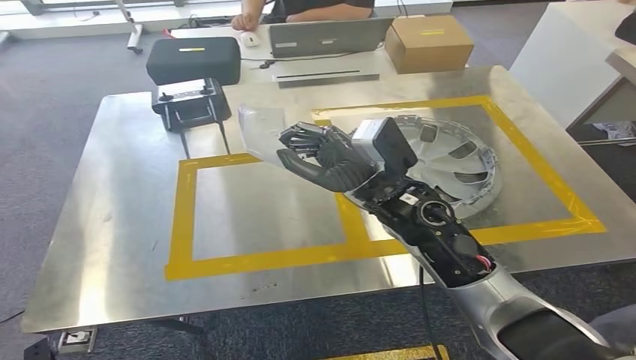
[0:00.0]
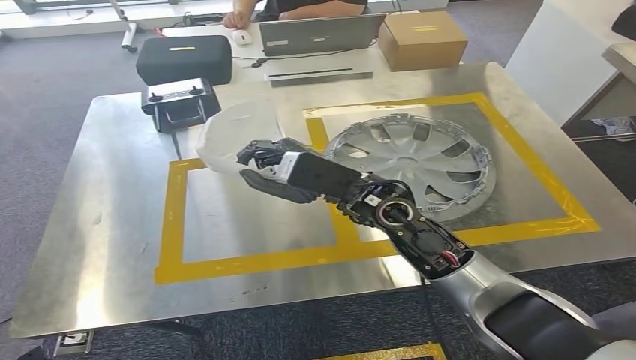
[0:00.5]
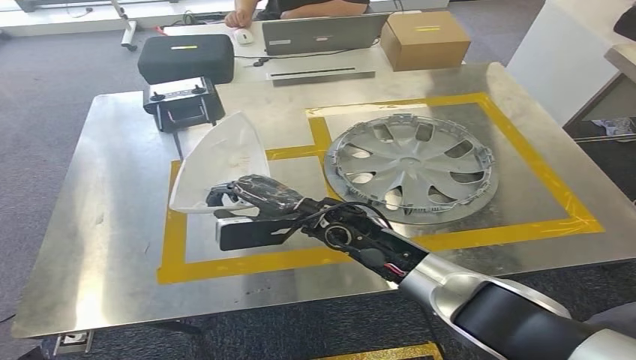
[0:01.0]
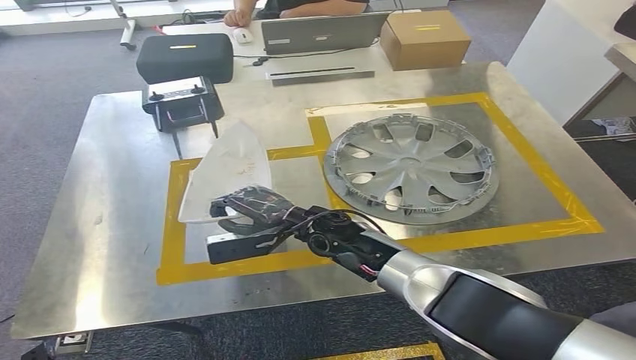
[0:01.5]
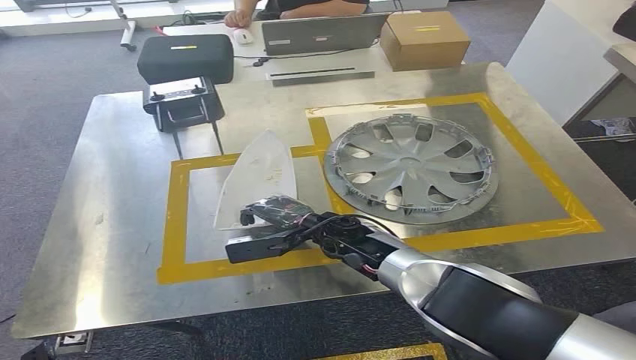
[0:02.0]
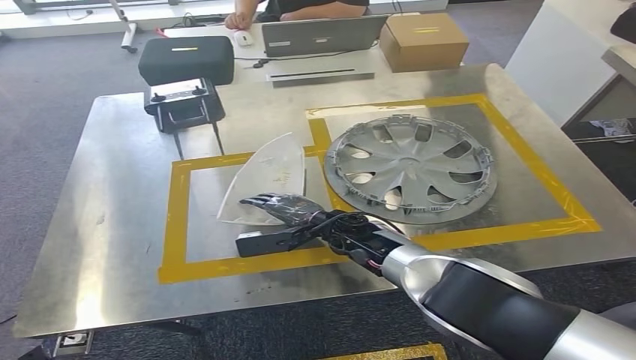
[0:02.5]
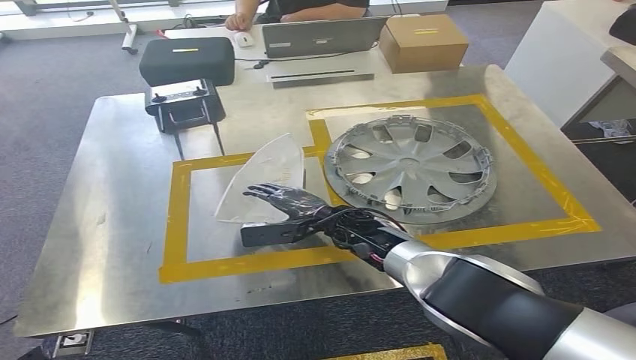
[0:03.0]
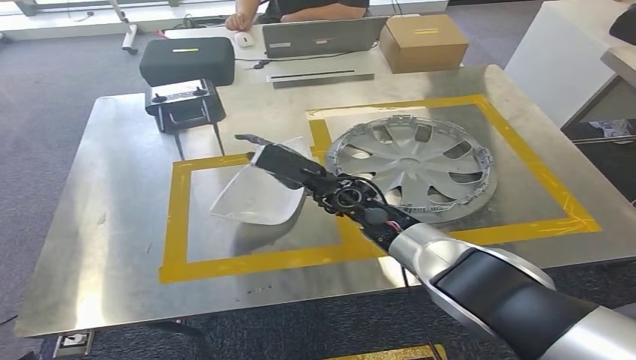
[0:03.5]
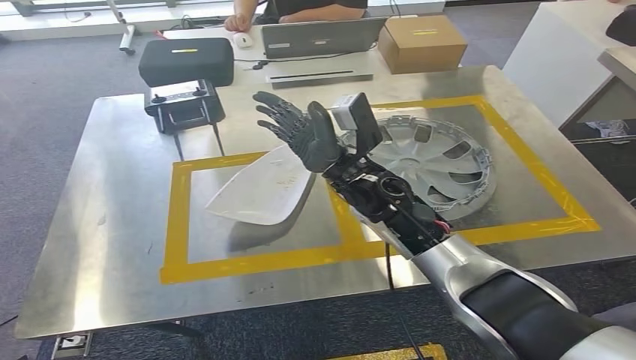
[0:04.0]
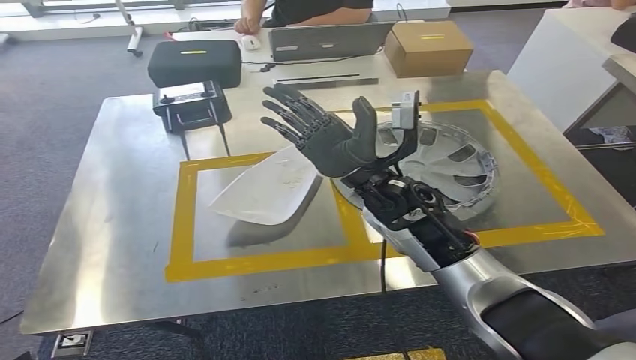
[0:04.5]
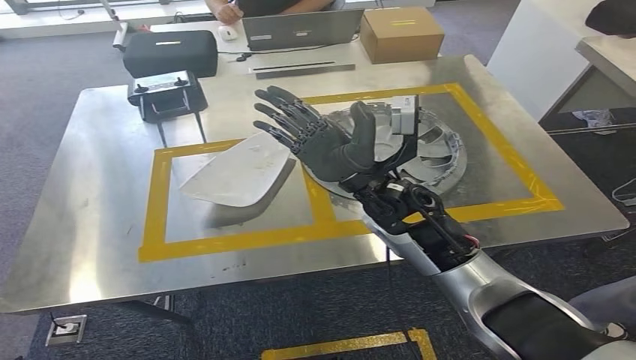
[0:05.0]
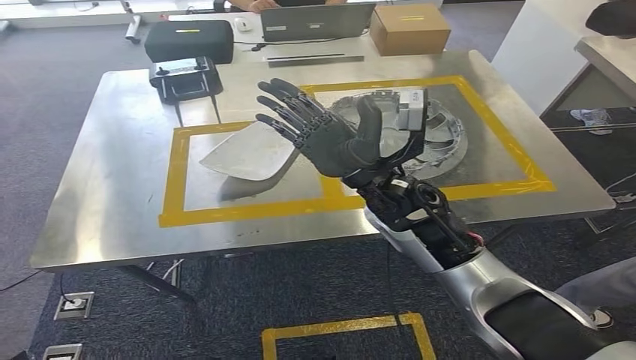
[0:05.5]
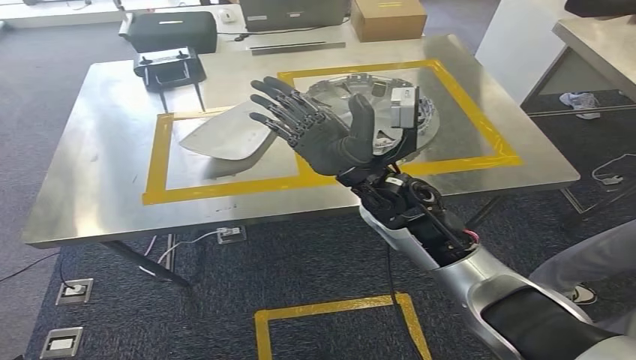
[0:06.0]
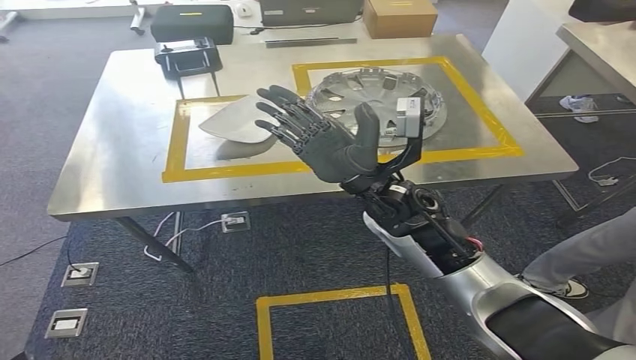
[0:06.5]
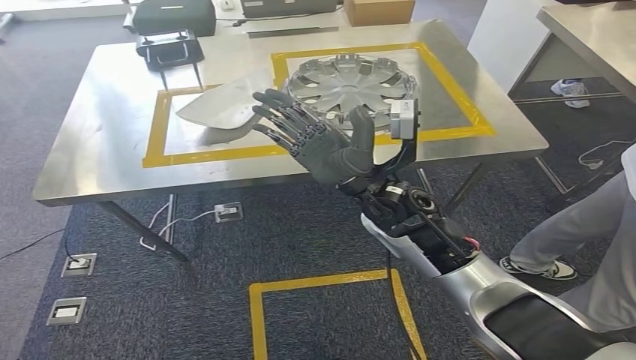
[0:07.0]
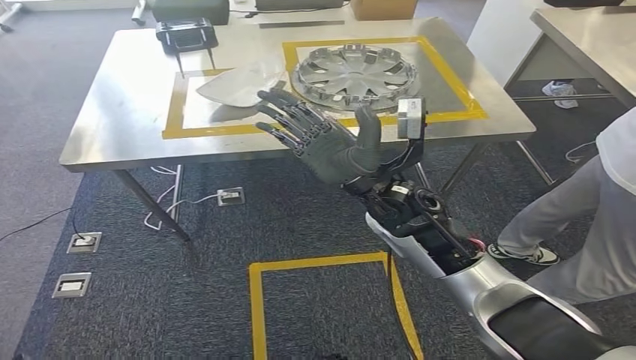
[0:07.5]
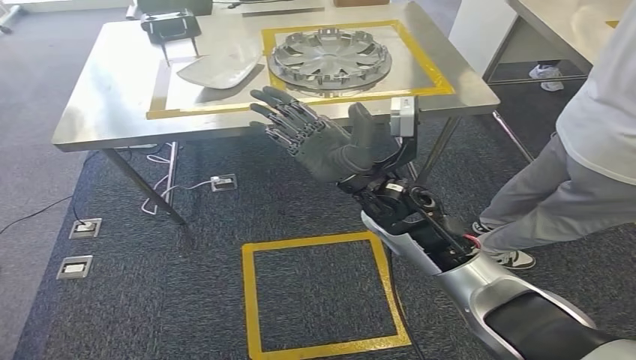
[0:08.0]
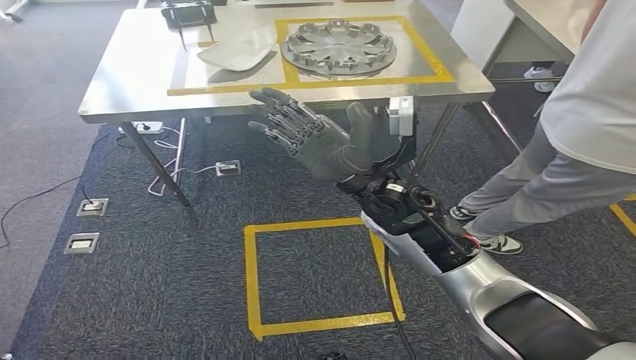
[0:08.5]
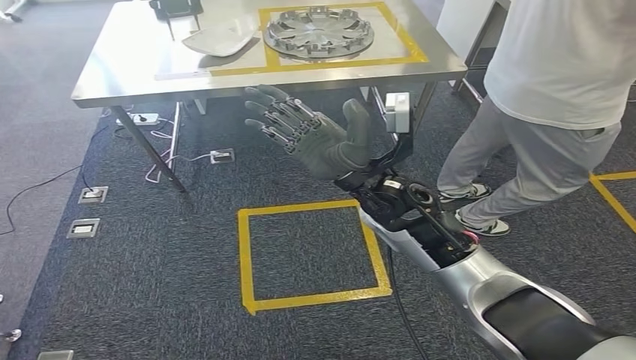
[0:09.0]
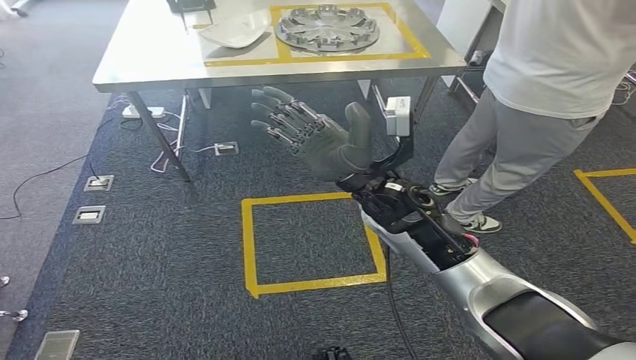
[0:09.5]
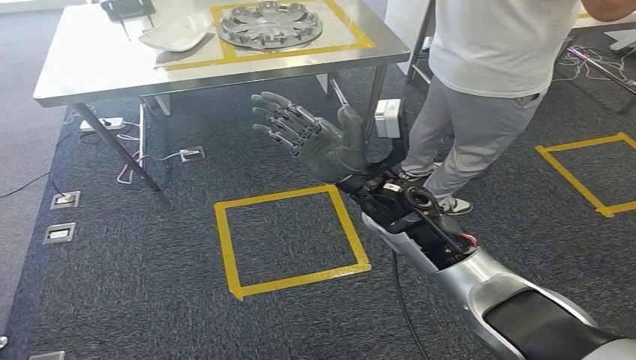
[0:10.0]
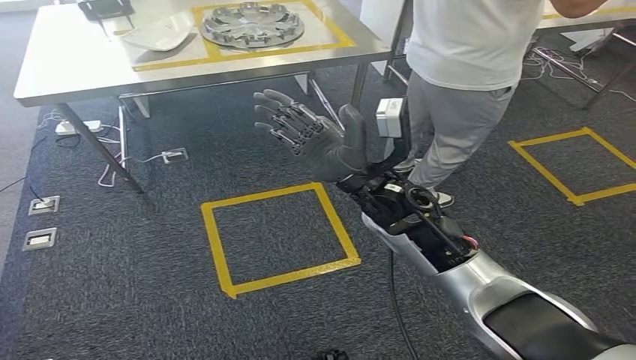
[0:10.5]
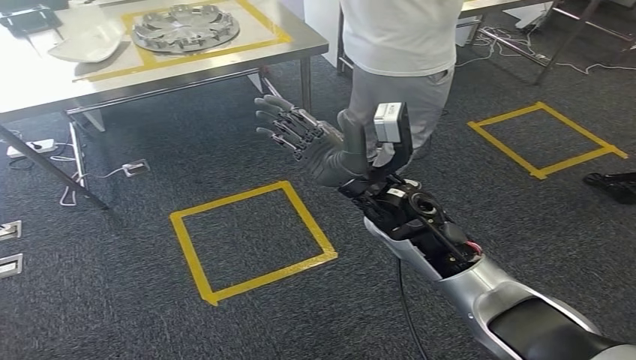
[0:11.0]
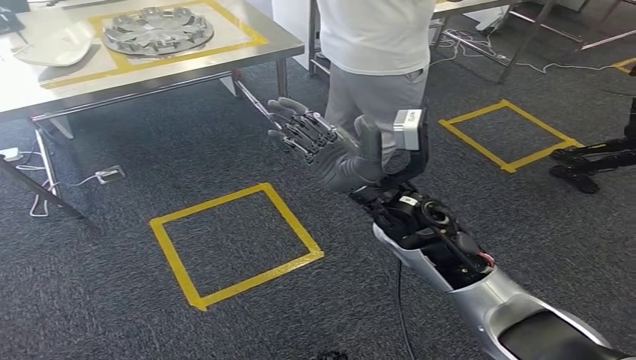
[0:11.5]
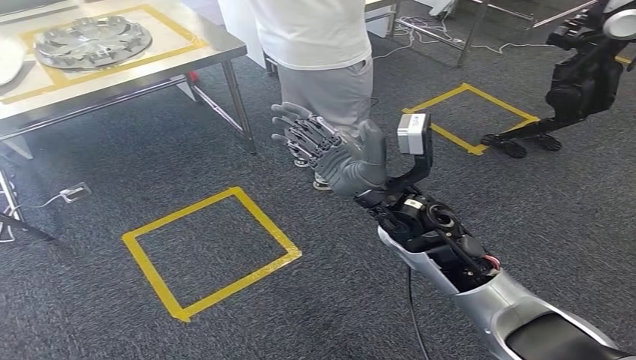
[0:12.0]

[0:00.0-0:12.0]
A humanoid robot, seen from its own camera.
Step, 0:00.0 to 0:04.5: Insert the small parts into the corresponding slots on the workbench.

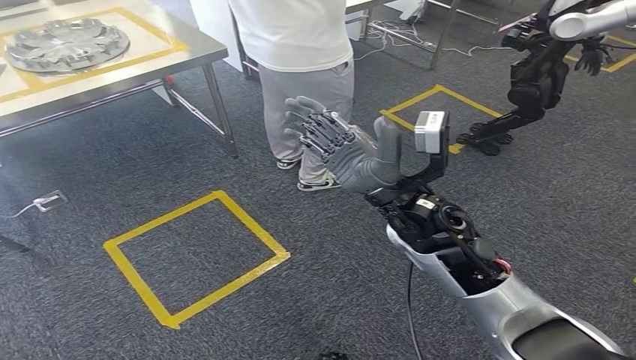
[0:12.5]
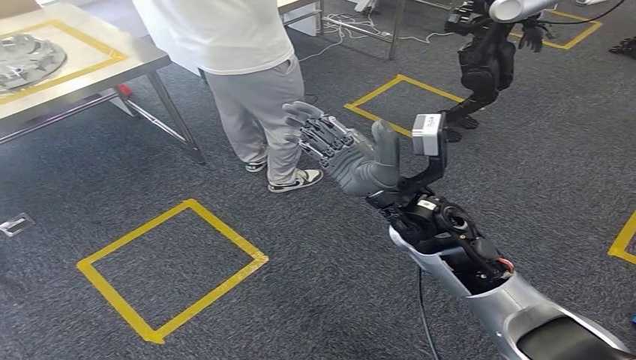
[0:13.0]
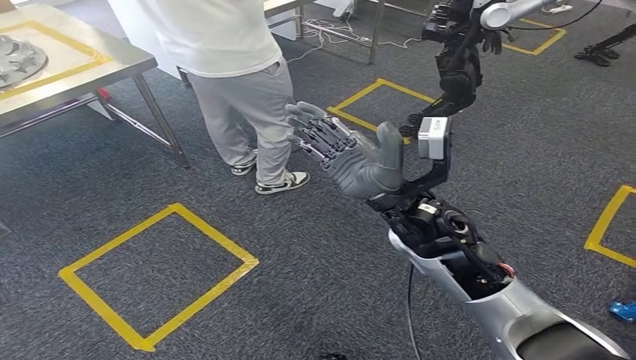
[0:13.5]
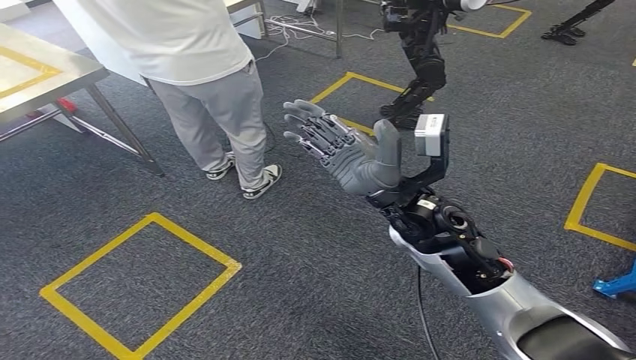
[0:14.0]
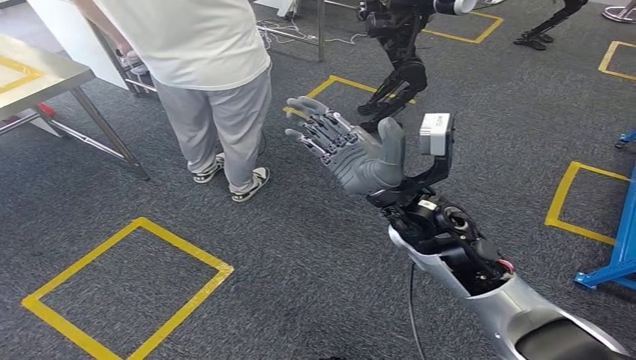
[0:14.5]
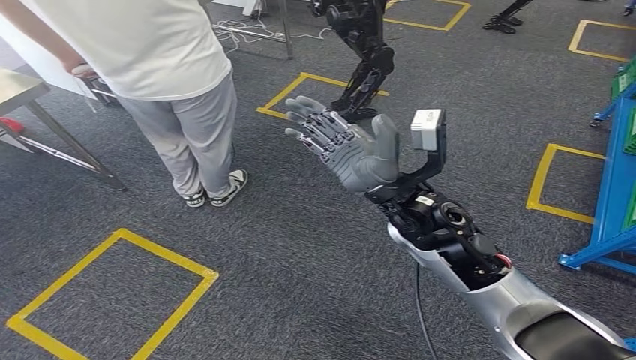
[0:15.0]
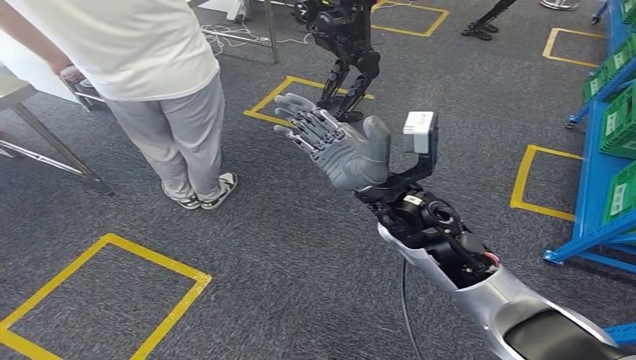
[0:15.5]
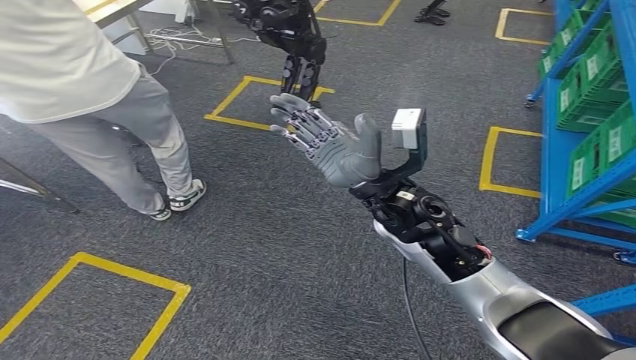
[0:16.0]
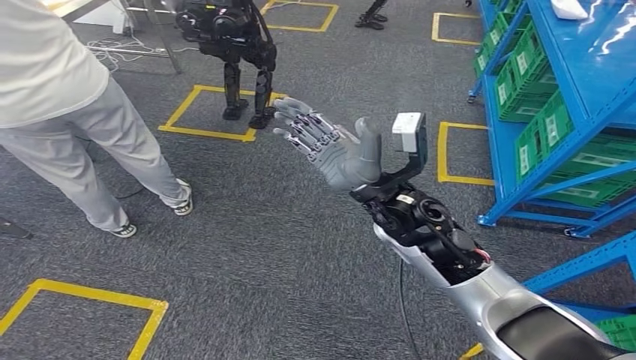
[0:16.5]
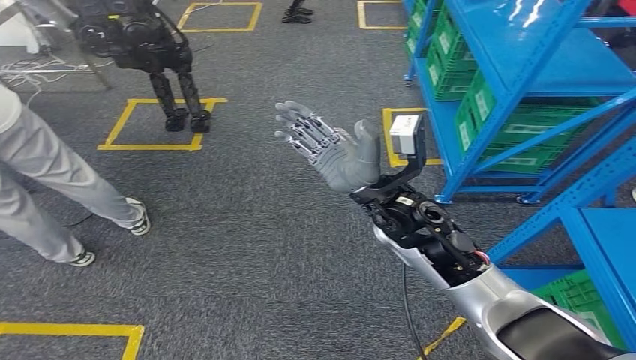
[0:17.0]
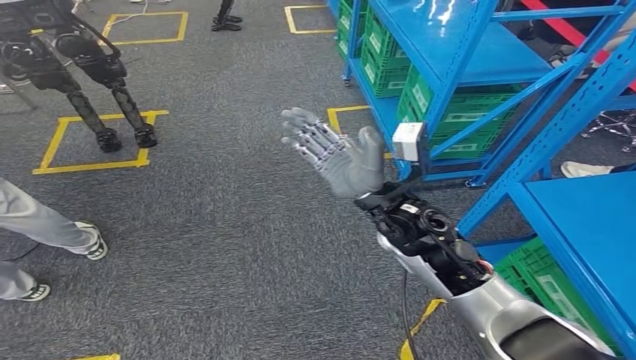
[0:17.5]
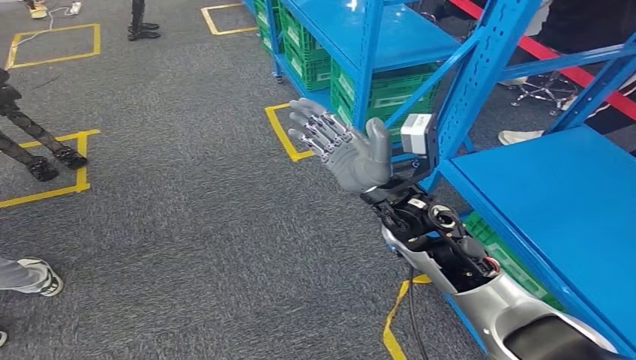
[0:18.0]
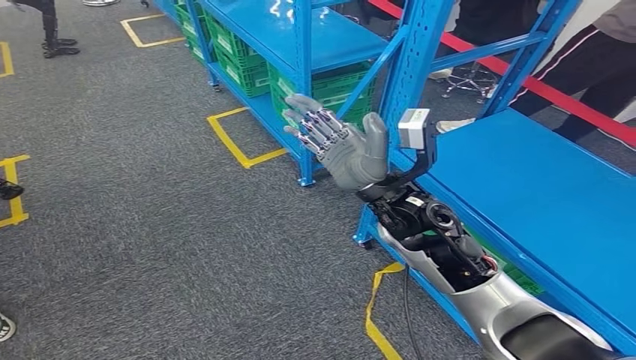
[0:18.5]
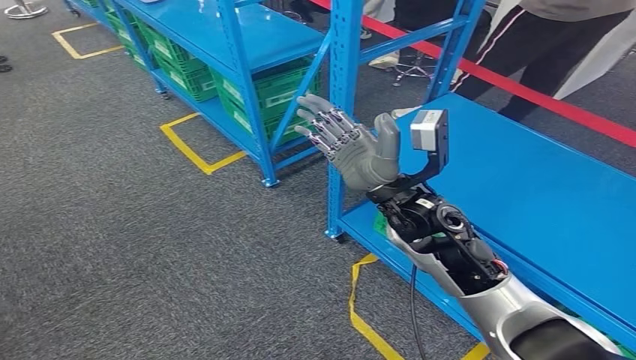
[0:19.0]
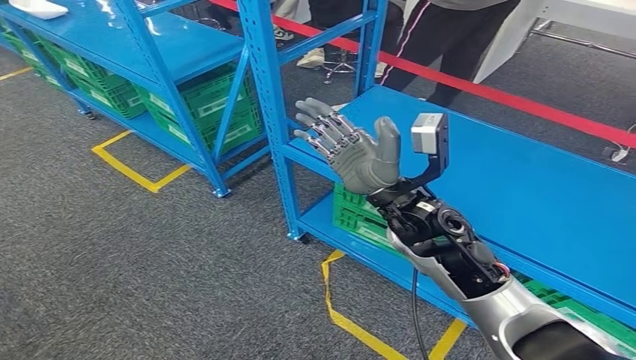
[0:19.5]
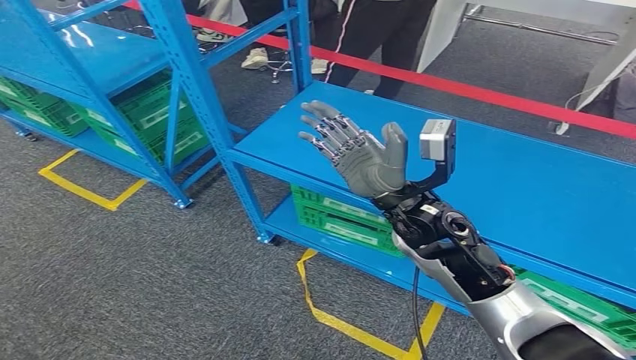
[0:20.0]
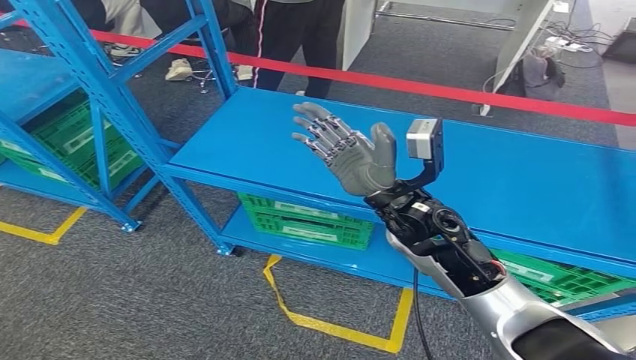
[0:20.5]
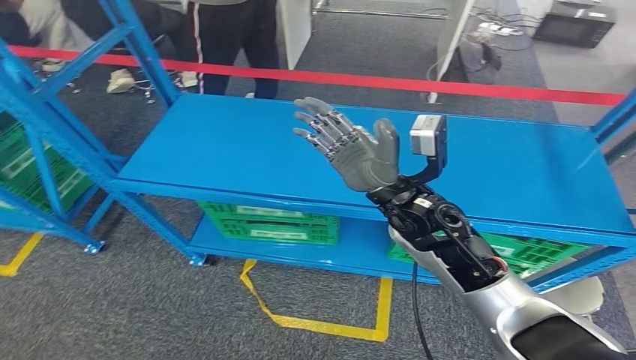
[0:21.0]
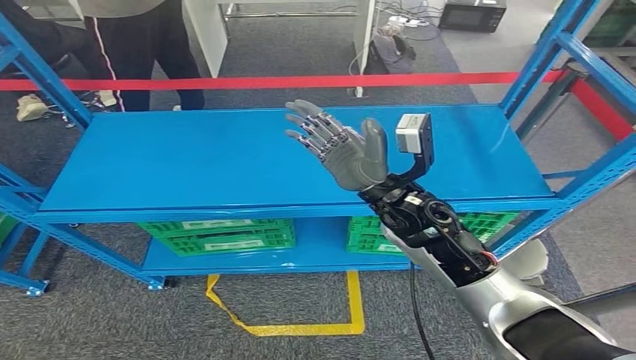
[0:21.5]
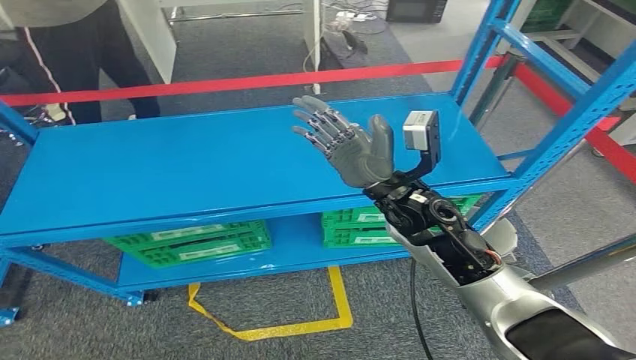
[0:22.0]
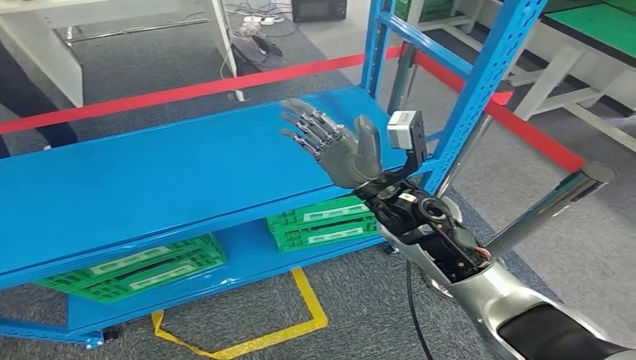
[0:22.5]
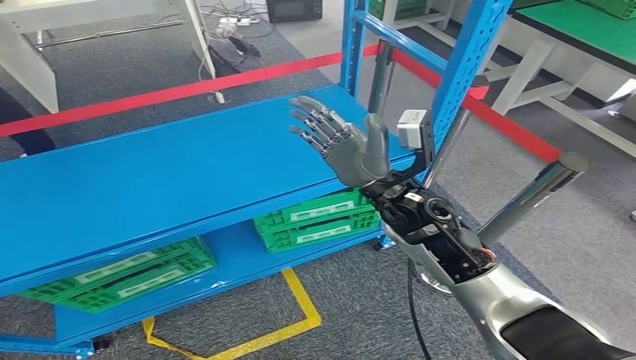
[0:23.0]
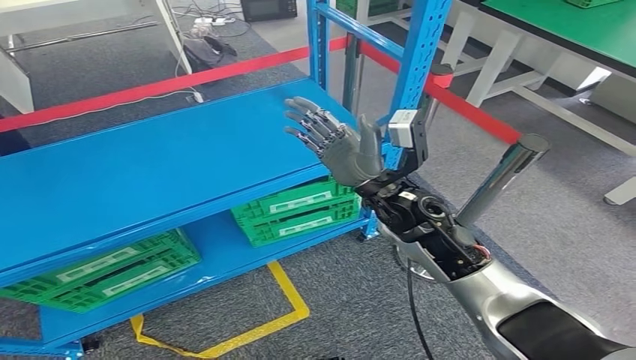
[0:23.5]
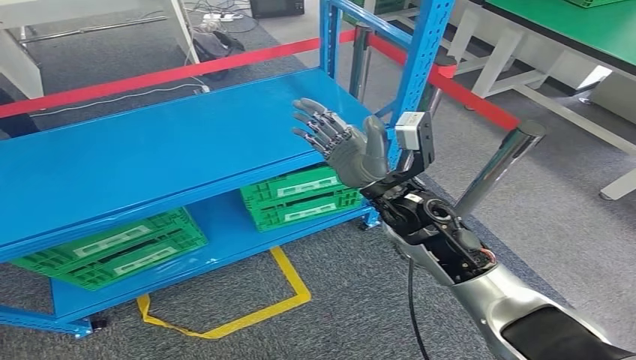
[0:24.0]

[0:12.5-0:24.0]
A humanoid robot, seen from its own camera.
Step, 0:12.5 to 0:24.0: Return to the initial position at the workbench.
